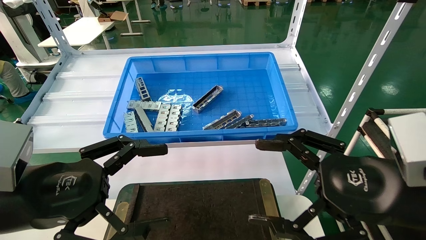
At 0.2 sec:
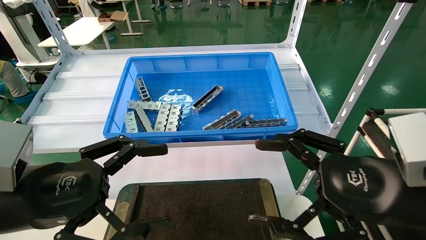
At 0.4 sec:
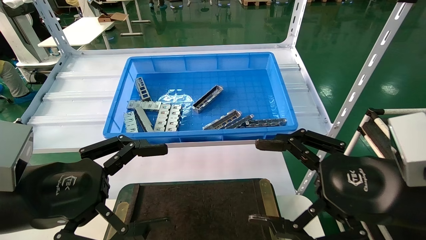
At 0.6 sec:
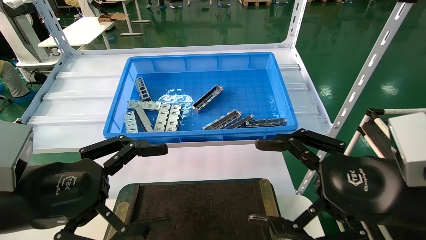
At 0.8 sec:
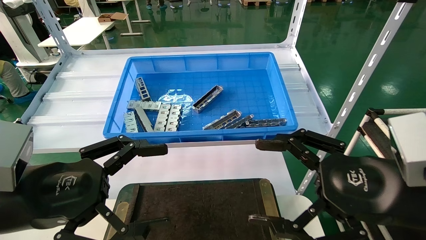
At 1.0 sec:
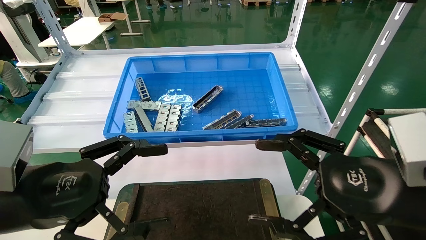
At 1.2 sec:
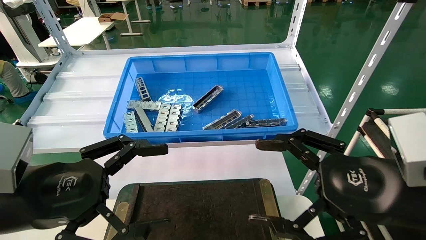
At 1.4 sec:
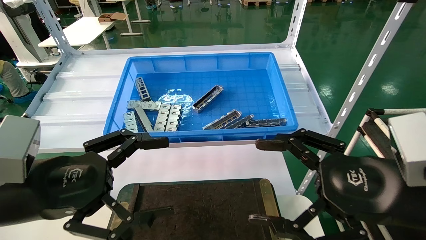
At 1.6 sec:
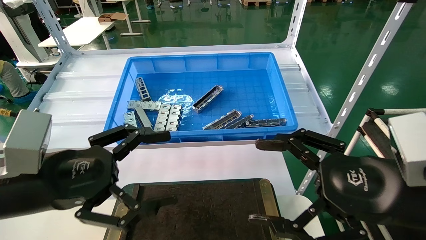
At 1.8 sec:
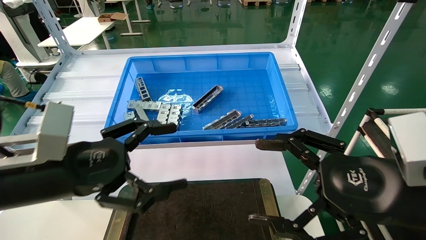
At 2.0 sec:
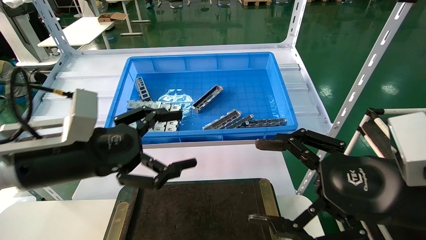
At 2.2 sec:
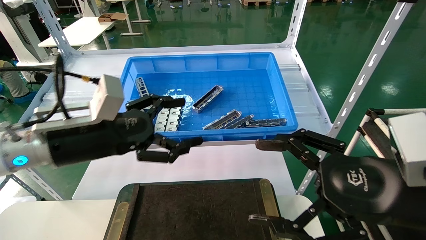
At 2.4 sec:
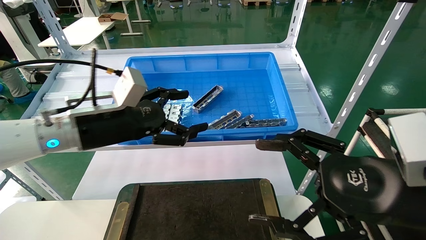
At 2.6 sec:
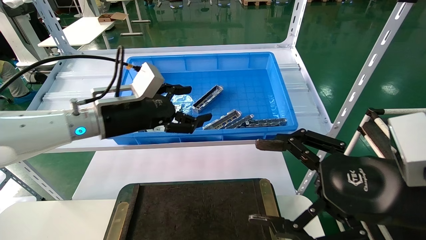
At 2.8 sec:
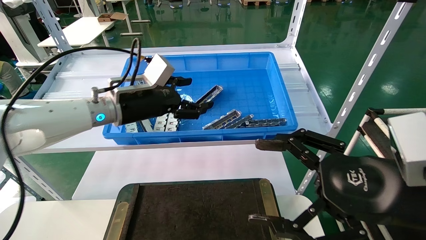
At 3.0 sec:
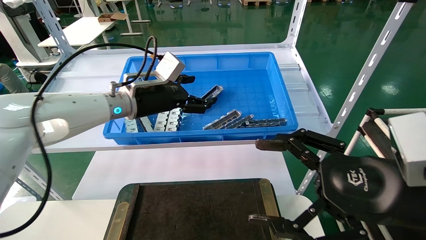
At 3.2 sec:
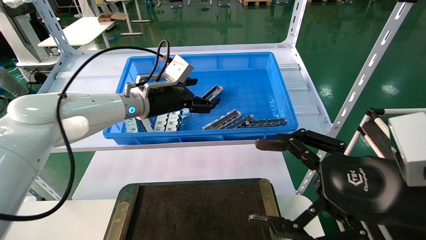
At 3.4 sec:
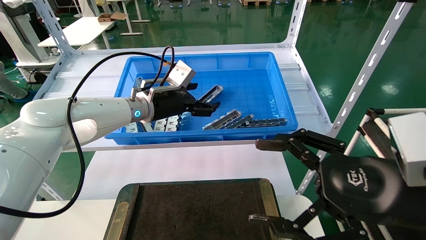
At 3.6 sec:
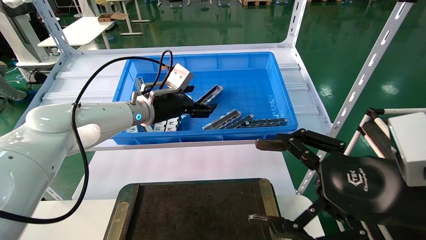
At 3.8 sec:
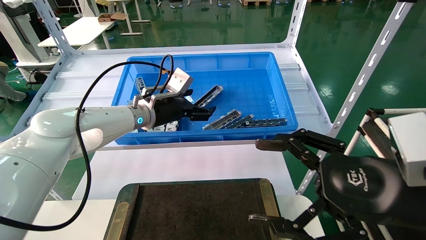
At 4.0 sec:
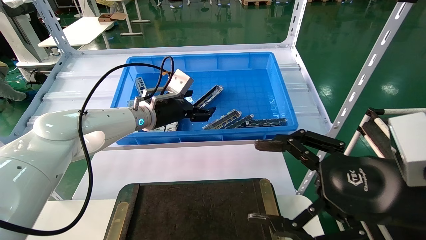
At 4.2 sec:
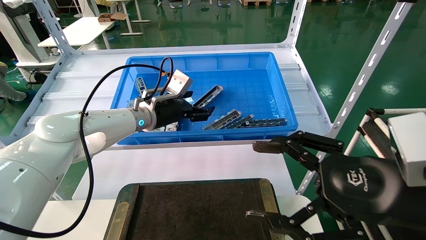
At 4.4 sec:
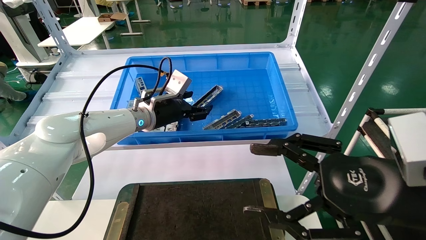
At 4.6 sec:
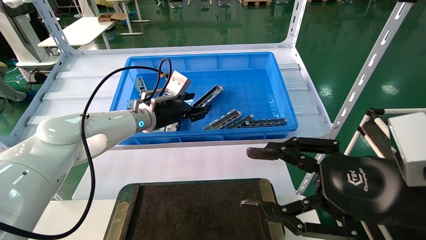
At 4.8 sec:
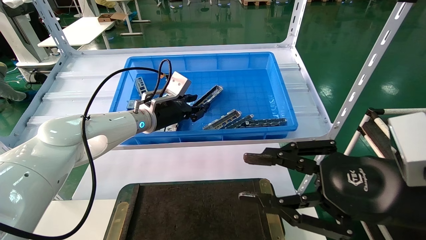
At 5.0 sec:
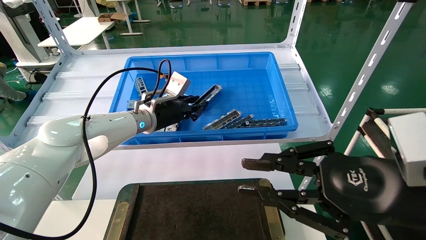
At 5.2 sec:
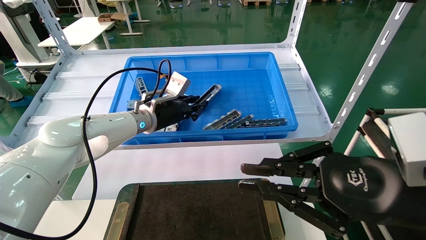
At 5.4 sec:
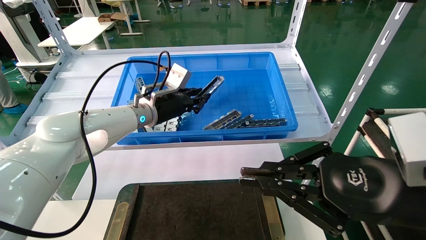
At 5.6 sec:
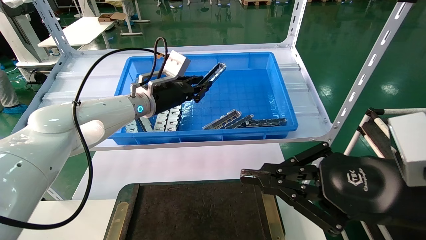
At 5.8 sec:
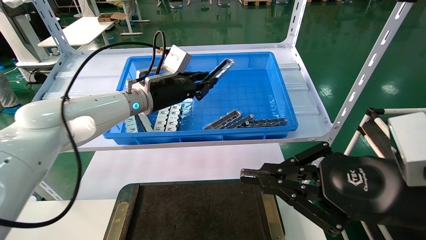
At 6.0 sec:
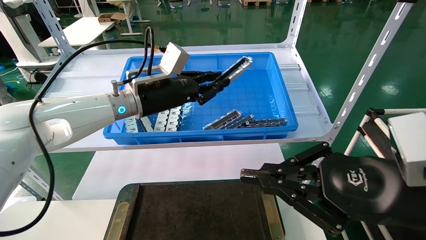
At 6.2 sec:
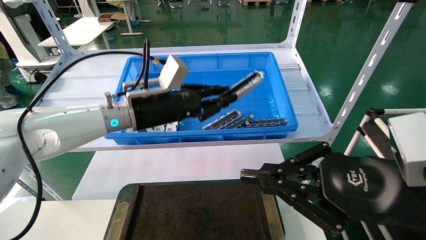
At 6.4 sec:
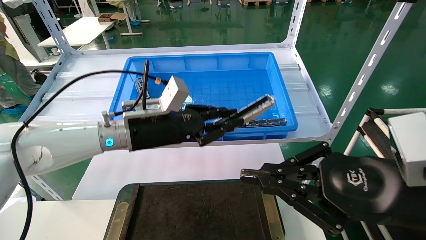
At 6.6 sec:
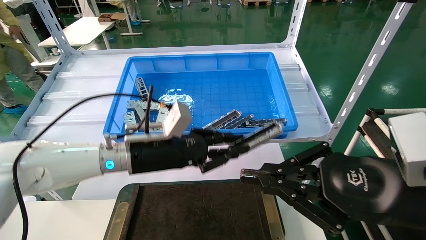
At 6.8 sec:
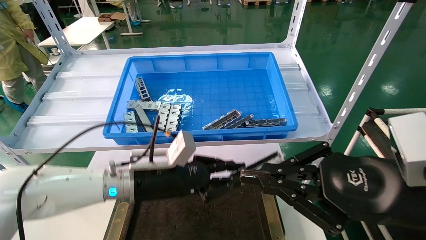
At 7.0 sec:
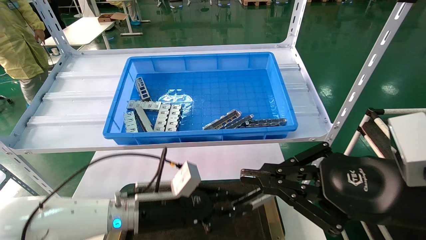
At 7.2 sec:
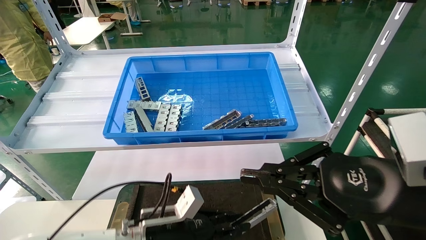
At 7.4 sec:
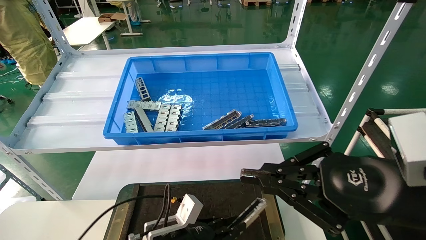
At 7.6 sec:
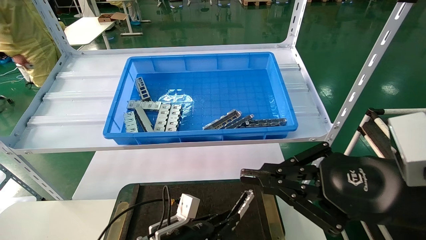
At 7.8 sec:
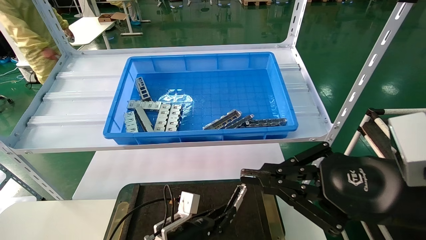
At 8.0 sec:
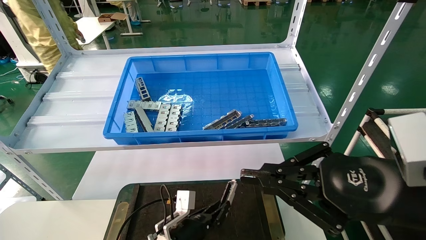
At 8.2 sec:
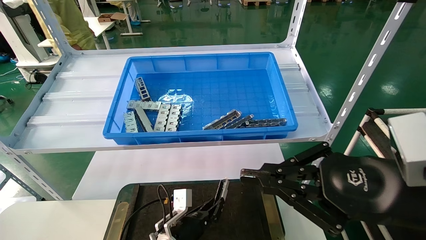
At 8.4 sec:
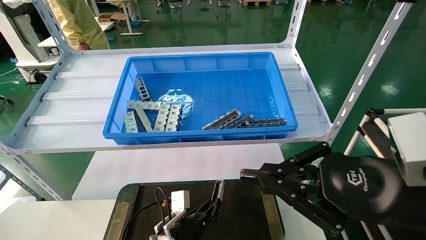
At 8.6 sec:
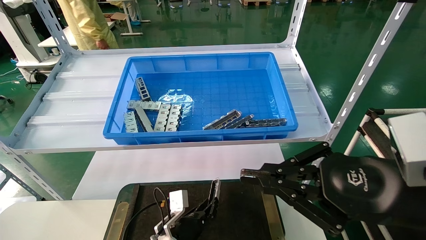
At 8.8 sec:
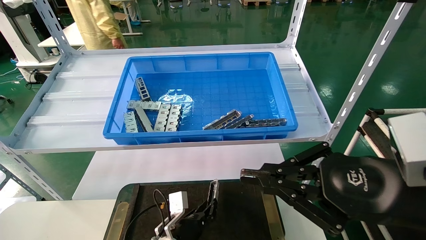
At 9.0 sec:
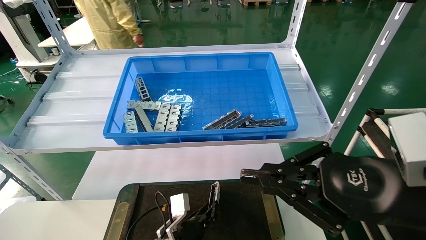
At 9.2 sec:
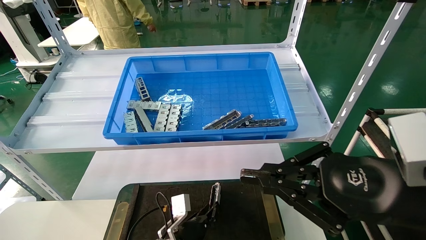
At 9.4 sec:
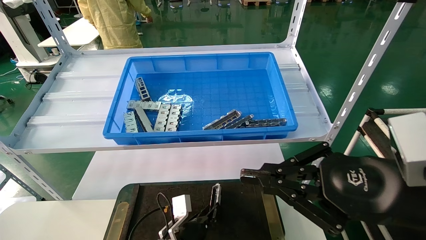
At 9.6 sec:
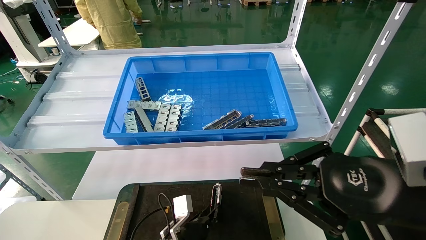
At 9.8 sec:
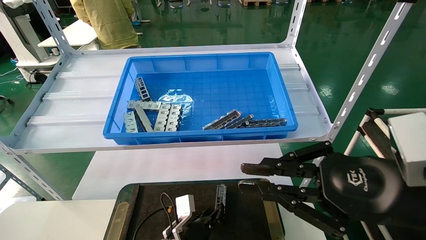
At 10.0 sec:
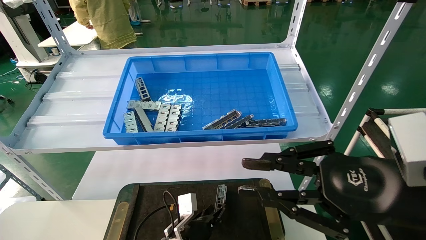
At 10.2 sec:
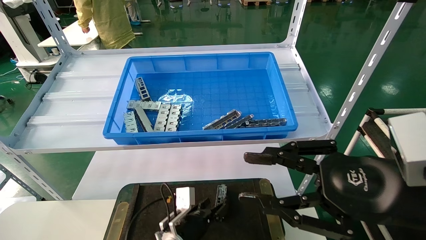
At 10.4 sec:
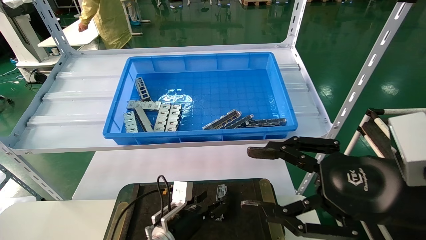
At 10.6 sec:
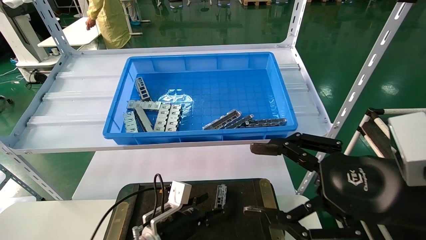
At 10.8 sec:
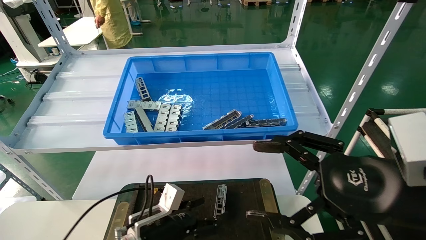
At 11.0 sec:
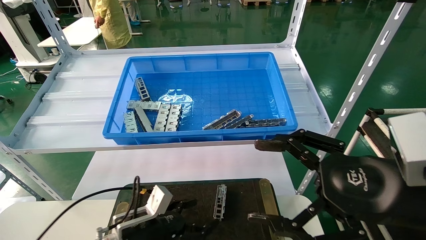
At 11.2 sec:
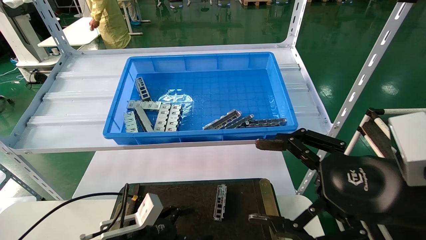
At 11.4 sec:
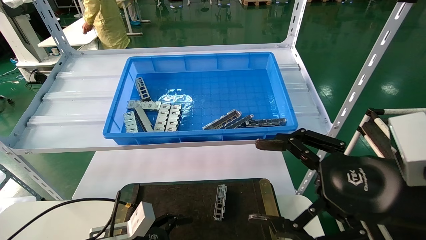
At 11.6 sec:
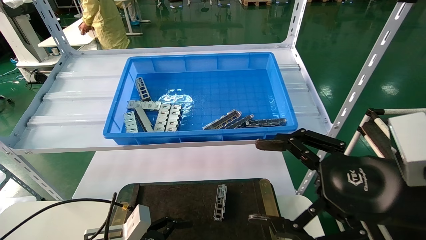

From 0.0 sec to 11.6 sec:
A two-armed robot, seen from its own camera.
Task of the whole recording: Grasp the part with one hand and place it on the black container.
Step, from 2.0 sec to 5.6 sec: Pick up the front USB bracket from the feeding area.
Step, from 5.8 sec to 10.0 sec: Place the front USB bracket into the box.
From 0.0 sec to 1.4 sec: Both grippers stay put.
From 1.4 sec to 2.8 sec: The left gripper travels forward by approximately 20 cm.
From 2.8 sec to 4.4 sec: The left gripper travels forward by roughly 5 cm.
From 4.4 sec to 5.8 sec: The right gripper closes up, while the left gripper moves approximately 5 cm, and closes up.
From 5.8 sec to 7.2 sec: The left gripper shifts about 30 cm downward and backward.
From 7.2 sec to 8.8 sec: The left gripper is displaced downward by some 10 cm.
From 8.8 sec to 10.2 sec: The left gripper opens.
From 10.2 sec to 11.6 sec: The left gripper shifts about 15 cm to the left and backward, and opens. Meanwhile the right gripper opens up.
